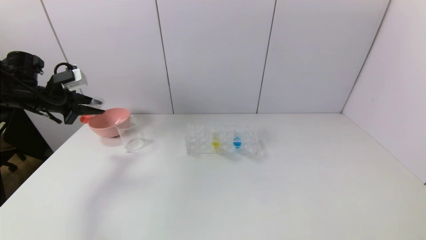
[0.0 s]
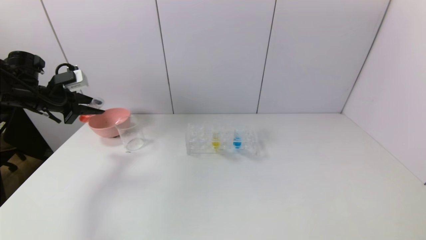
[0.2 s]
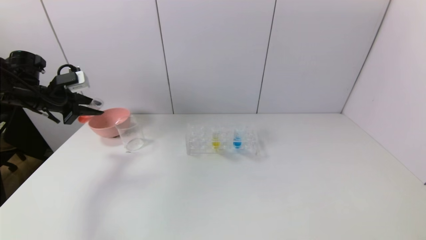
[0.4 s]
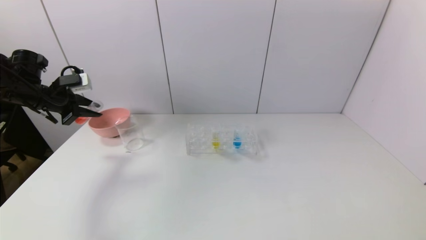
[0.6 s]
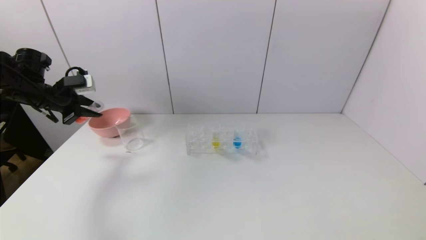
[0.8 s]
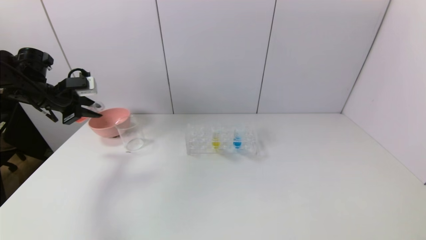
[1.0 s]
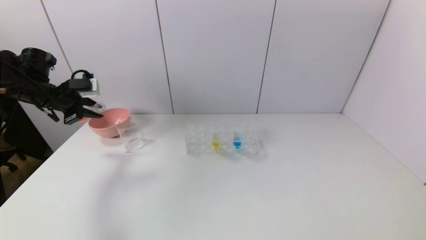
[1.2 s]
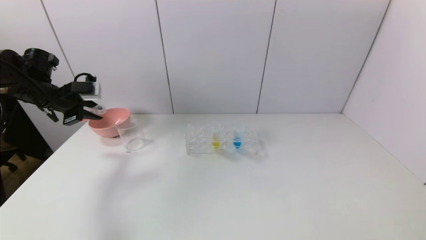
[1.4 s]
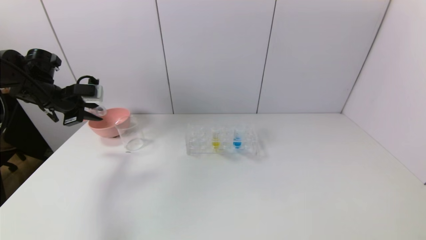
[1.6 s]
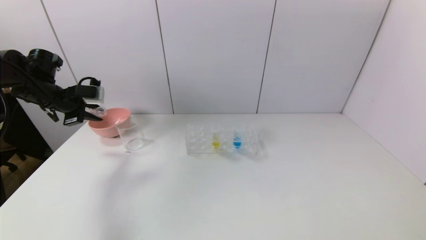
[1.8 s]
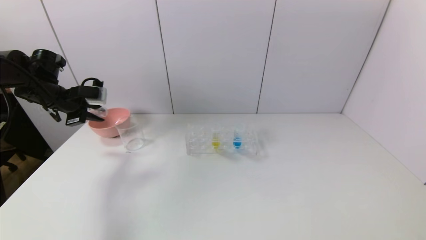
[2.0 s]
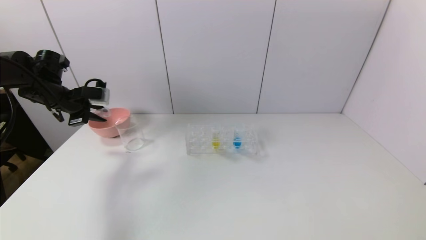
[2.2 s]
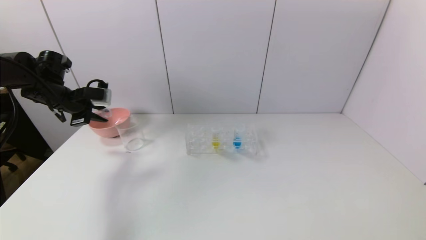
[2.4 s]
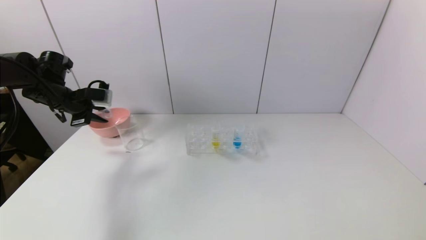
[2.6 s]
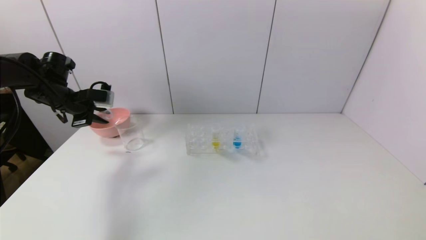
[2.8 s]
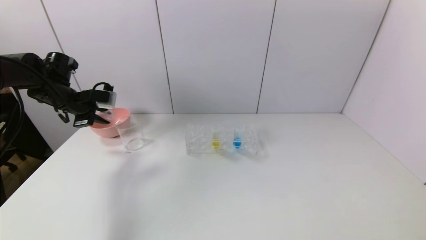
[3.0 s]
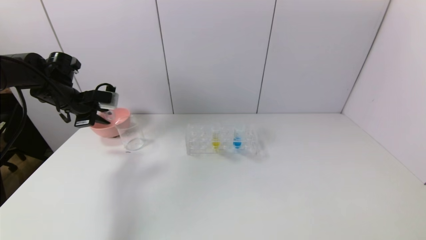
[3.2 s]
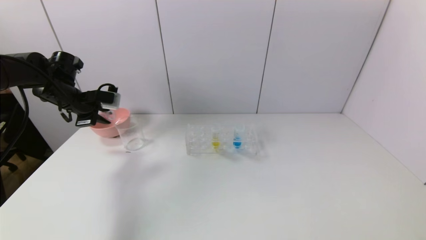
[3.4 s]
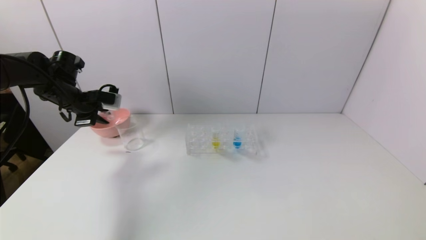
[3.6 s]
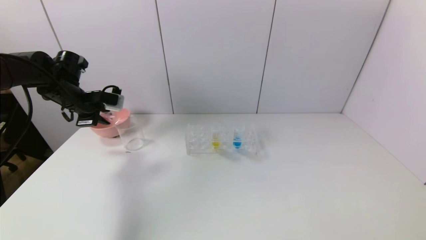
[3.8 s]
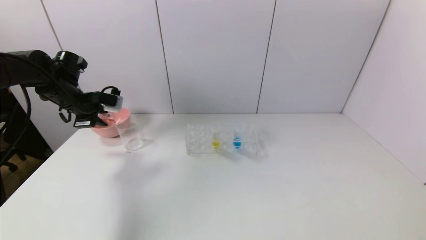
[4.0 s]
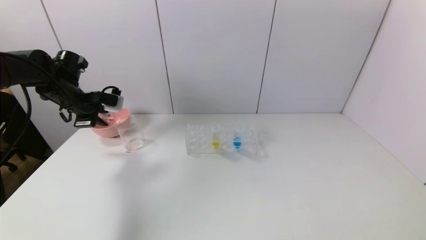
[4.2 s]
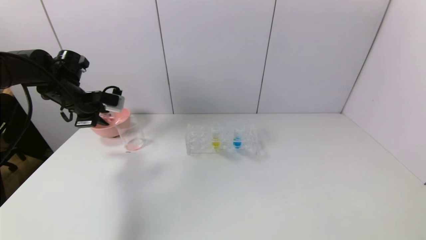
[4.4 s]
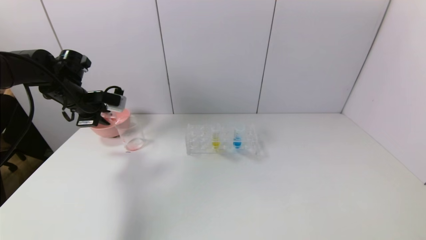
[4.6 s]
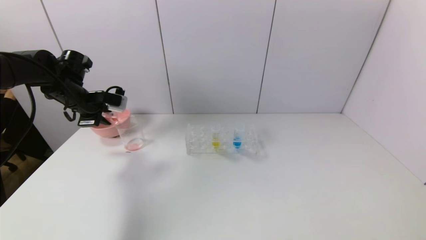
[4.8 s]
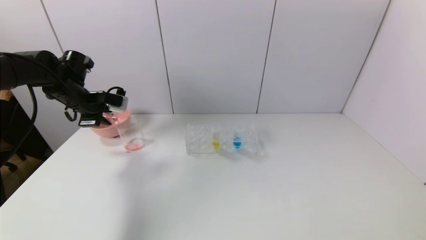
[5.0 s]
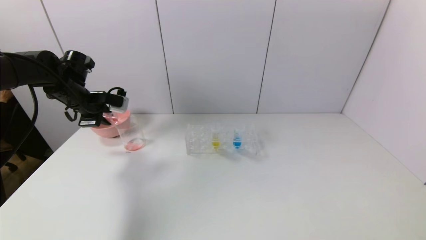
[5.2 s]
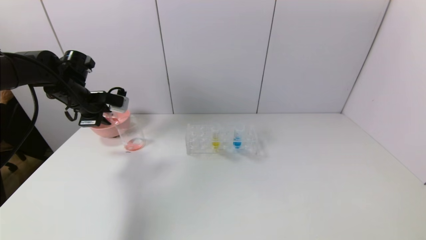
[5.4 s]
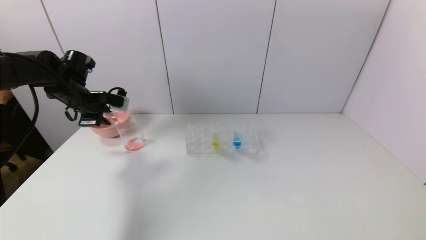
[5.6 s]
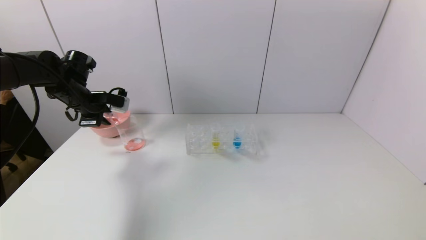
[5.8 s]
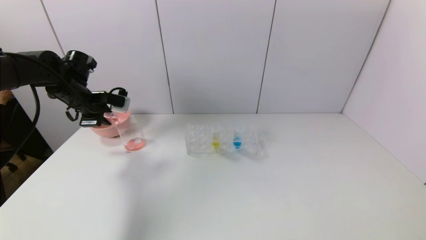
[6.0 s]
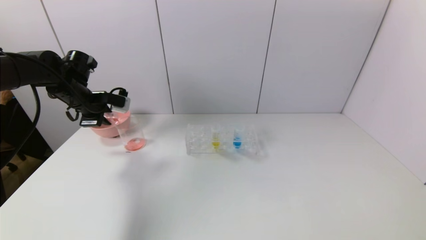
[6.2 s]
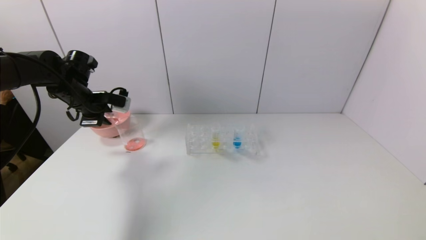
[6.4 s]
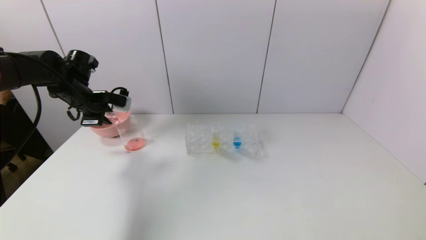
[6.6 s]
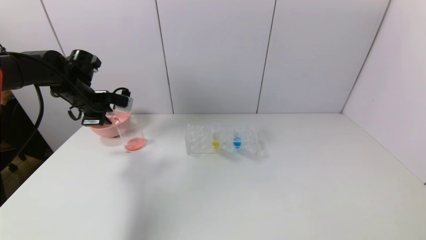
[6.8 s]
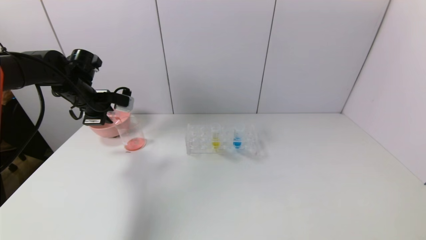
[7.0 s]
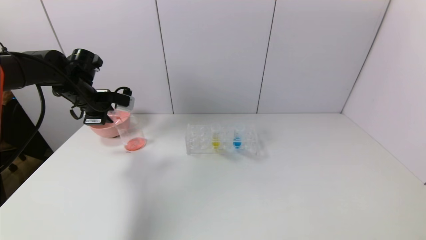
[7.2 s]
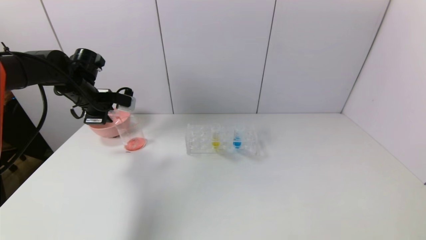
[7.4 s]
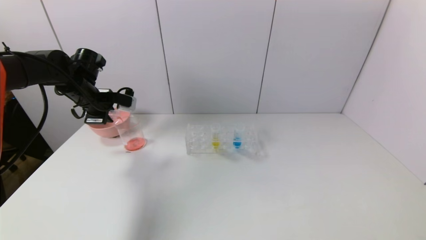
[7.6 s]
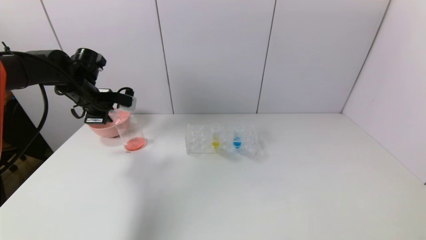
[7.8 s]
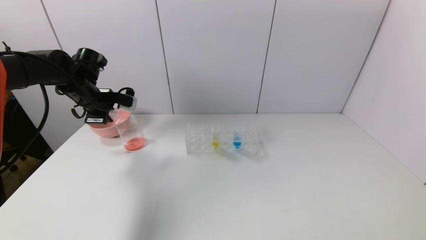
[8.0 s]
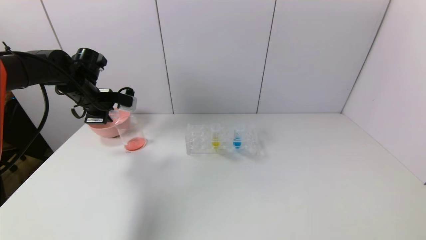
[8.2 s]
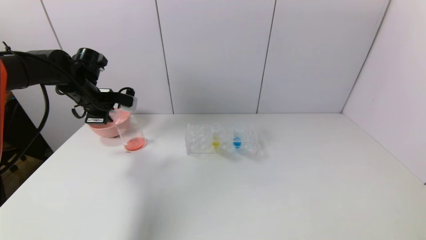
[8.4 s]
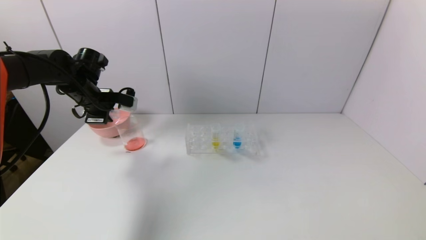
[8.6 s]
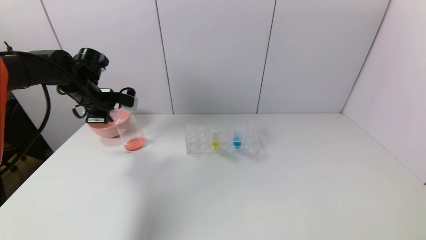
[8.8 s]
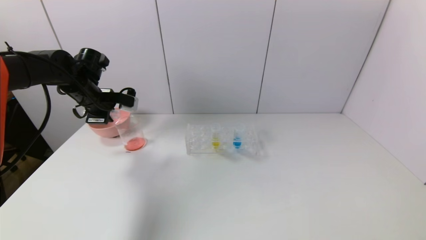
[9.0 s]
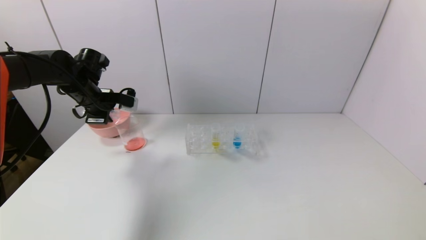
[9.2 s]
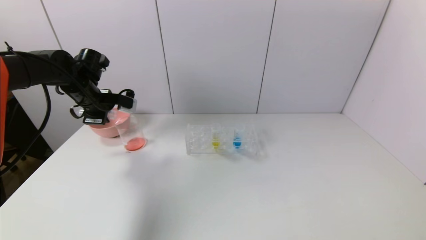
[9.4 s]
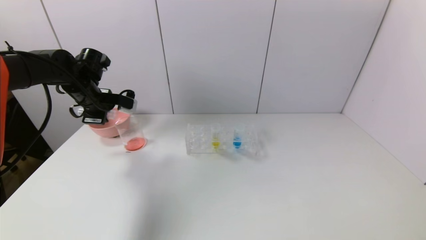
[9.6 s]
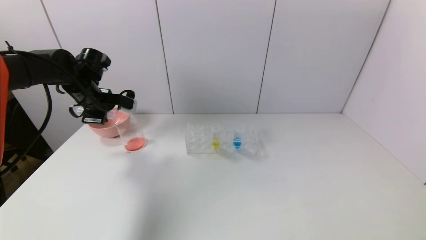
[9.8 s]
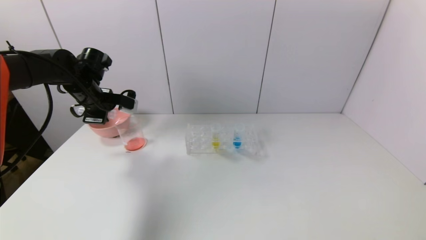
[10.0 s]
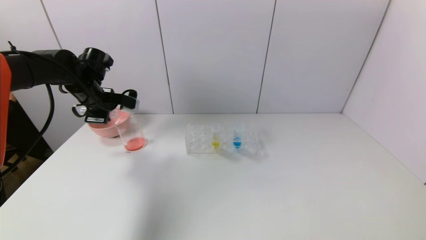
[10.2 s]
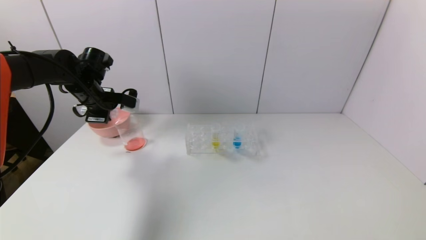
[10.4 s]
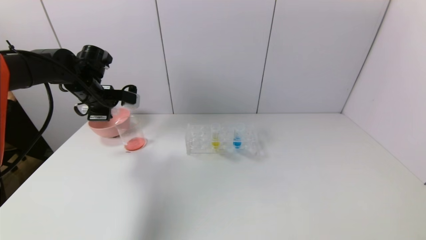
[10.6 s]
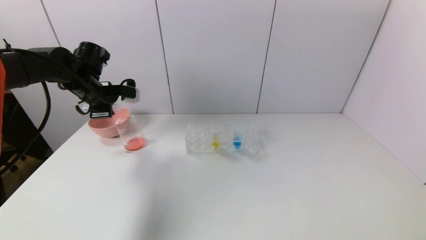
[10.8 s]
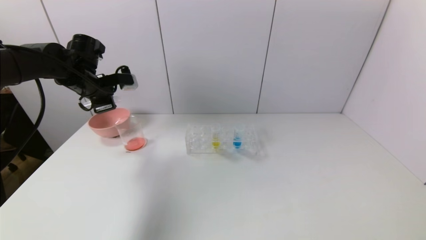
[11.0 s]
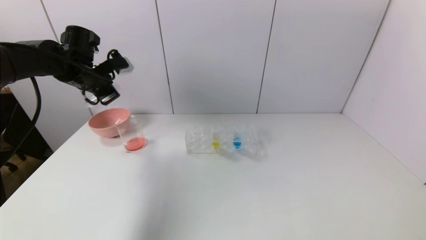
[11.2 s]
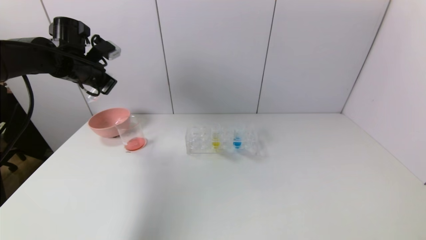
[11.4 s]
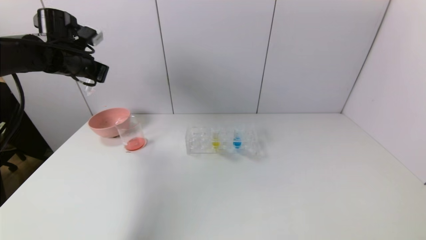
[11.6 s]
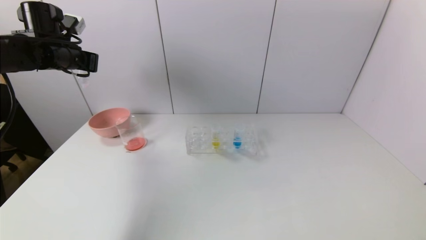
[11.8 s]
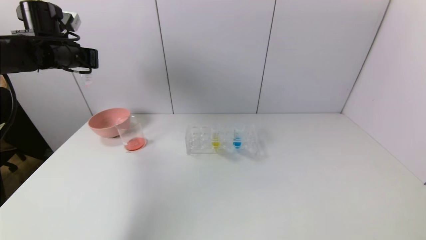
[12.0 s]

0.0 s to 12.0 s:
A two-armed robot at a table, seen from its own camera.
Task of the whole recording: pick up the test tube with red pigment and the test tube with blue pigment by grippers and pour them into the container.
Step, 0.0 to 11.4 s: Pour the red reagent into the graduated cylinder with the left gripper.
1.6 to 4.4 s: There are only small adjustments of the grippers.
4.4 to 6.0 s: Neither gripper changes place.
6.0 to 7.6 s: The grippers make only small movements.
7.6 to 9.0 s: The two grippers keep their place.
9.0 to 10.4 s: The grippers stay close to where they were, moving slightly.
10.4 to 12.0 s: The left gripper shifts about 10 cm upward.

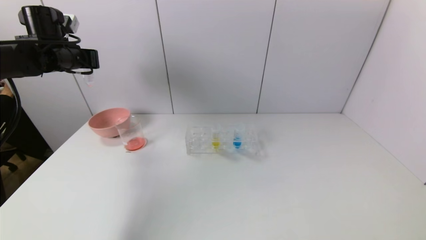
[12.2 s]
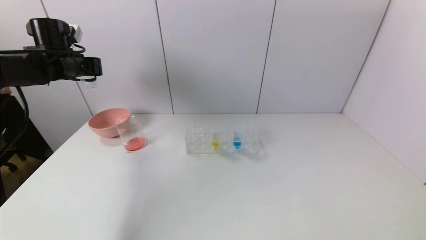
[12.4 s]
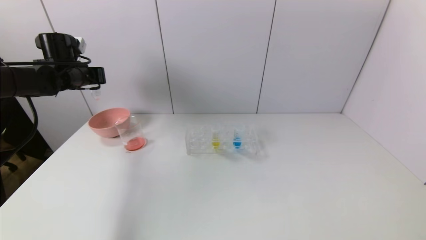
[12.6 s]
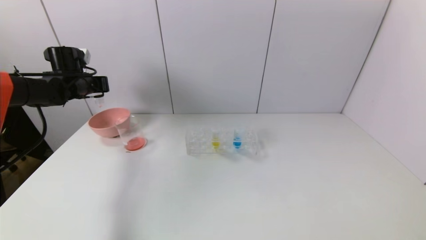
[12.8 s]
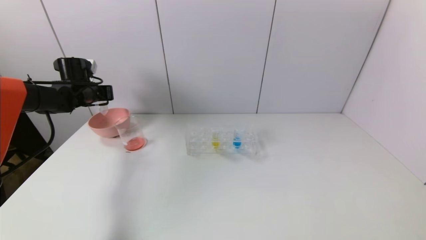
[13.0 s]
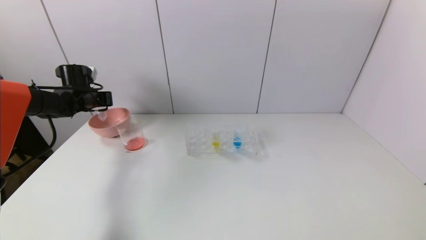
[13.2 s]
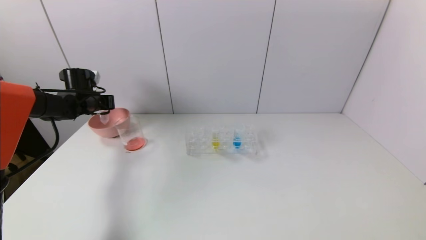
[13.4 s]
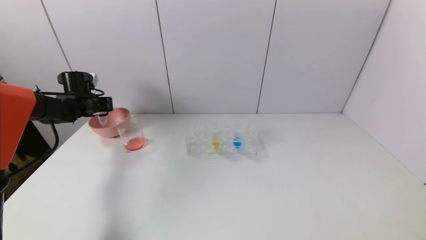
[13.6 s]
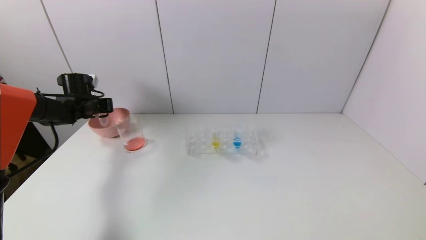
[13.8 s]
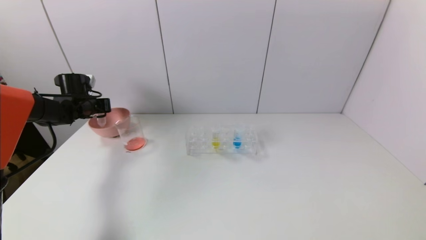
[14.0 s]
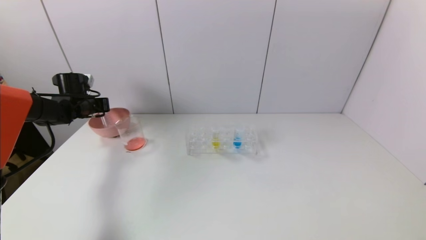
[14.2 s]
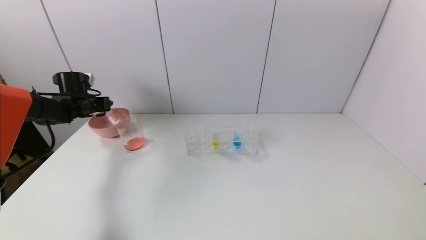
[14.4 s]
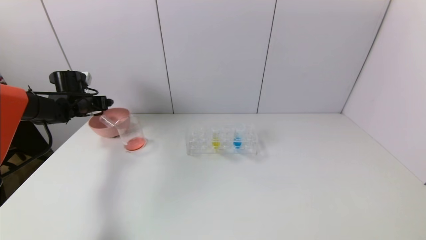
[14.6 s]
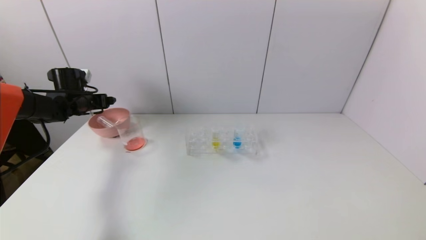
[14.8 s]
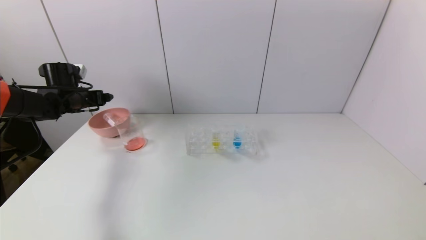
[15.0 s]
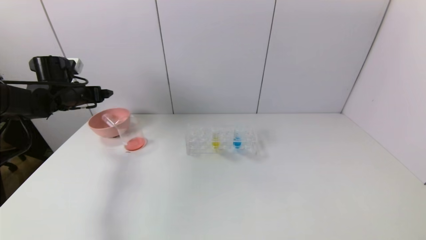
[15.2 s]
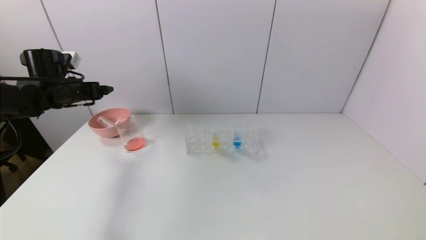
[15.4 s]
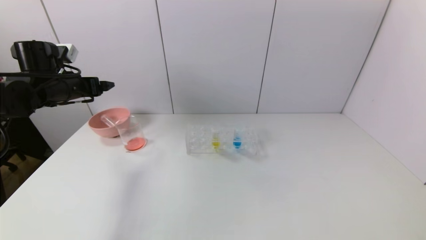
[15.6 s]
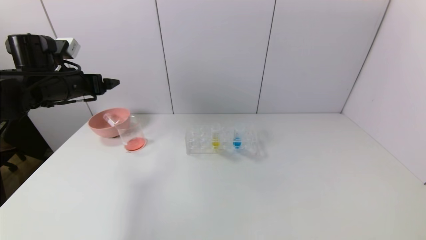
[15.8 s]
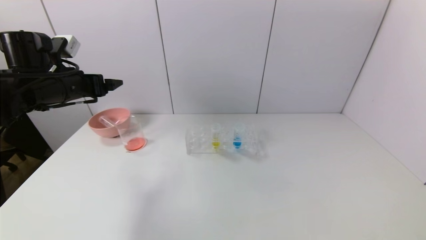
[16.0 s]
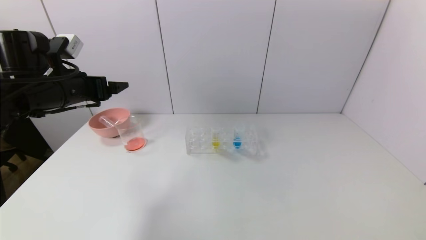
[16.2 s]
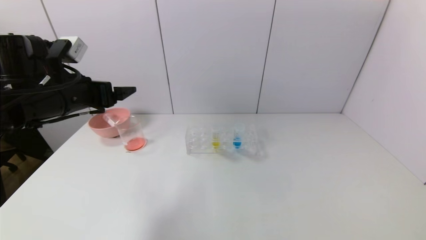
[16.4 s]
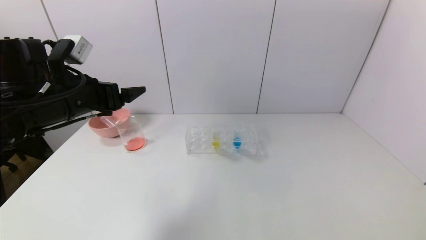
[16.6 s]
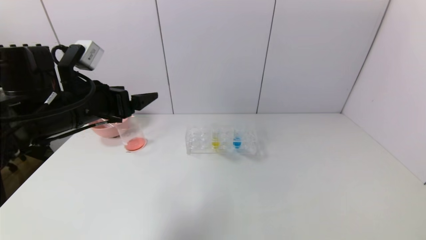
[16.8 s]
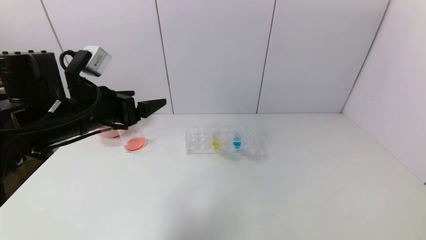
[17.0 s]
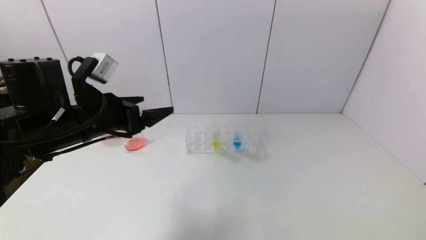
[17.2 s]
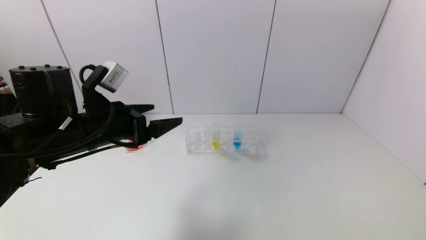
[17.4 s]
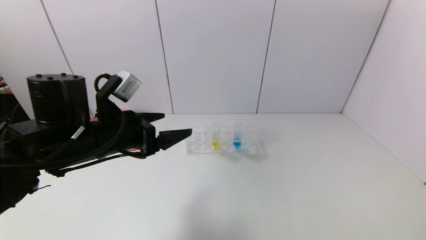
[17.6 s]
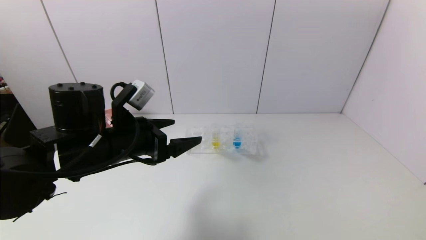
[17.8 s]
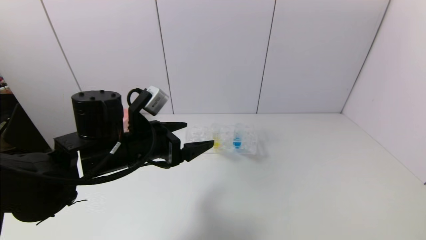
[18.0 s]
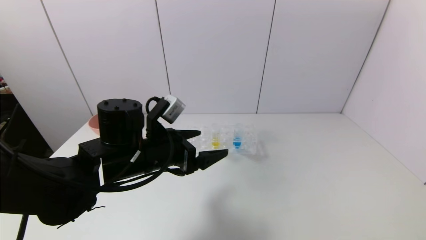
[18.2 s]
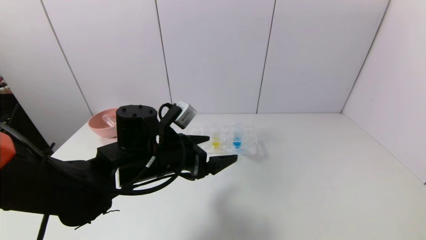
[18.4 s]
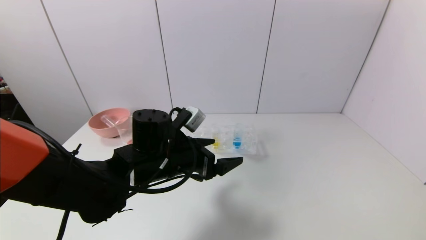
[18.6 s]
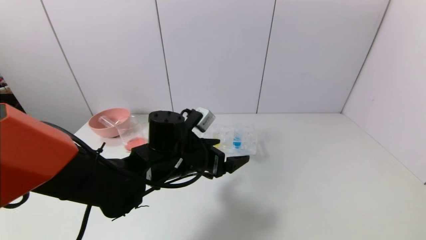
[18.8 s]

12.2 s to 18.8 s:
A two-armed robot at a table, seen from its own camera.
Task of the whole recording: pick up the test tube with red pigment and the test tube with blue pigment by grippers and pour them into the container.
Step, 12.2 to 15.4 s: Place the test tube into the bowl with the left gripper.
12.2 to 13.8 s: The left gripper is displaced downward by approximately 15 cm.
13.8 to 15.4 s: The left gripper moves backward and upward, about 10 cm, and opens up.
15.4 to 17.2 s: The left gripper moves backward and to the right, about 20 cm.
17.2 to 18.8 s: The left gripper goes approximately 15 cm to the right and downward.
